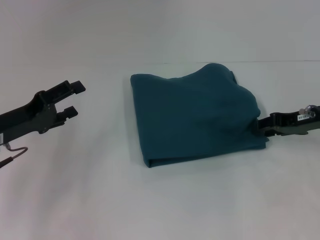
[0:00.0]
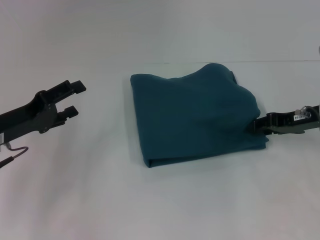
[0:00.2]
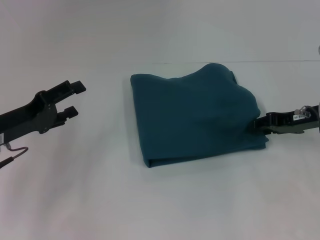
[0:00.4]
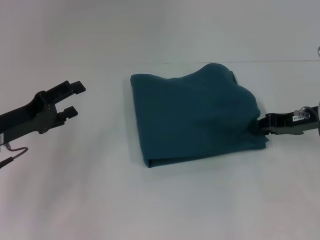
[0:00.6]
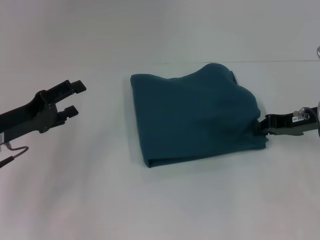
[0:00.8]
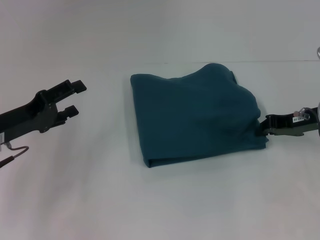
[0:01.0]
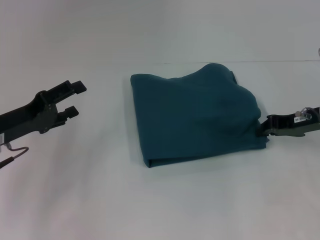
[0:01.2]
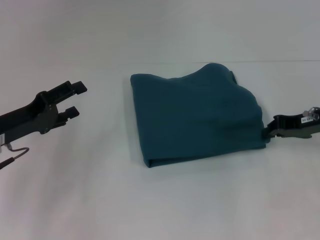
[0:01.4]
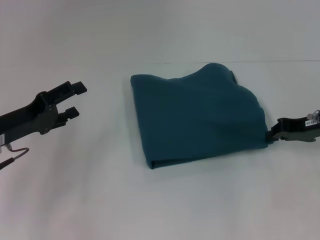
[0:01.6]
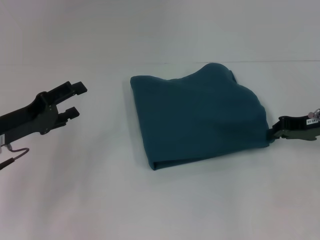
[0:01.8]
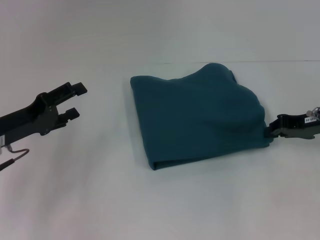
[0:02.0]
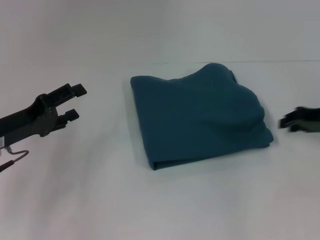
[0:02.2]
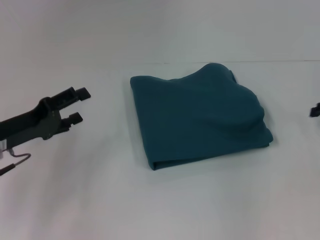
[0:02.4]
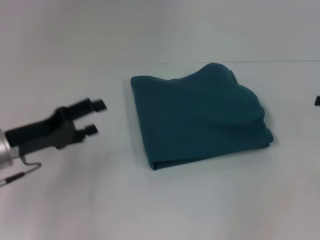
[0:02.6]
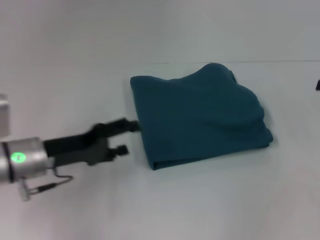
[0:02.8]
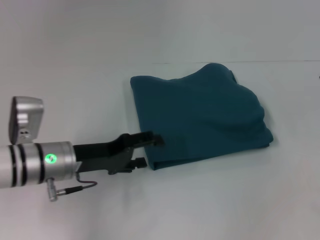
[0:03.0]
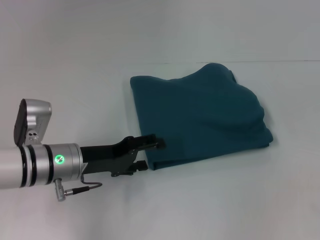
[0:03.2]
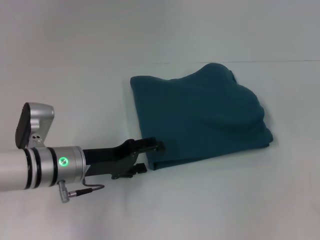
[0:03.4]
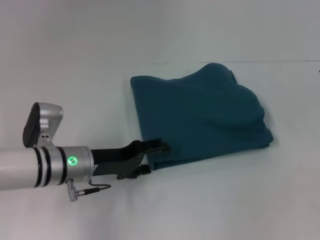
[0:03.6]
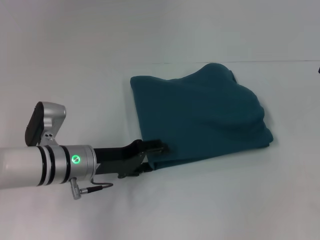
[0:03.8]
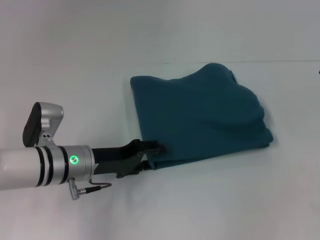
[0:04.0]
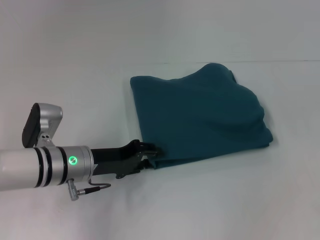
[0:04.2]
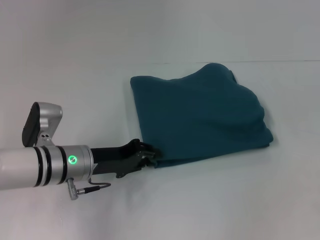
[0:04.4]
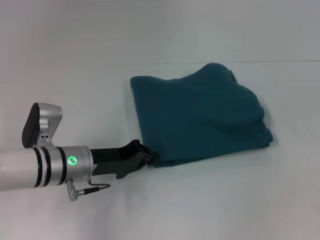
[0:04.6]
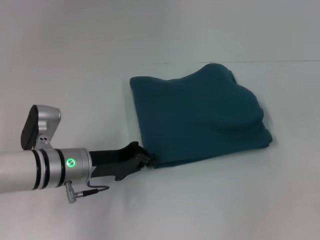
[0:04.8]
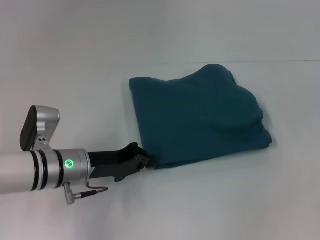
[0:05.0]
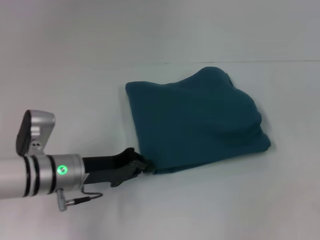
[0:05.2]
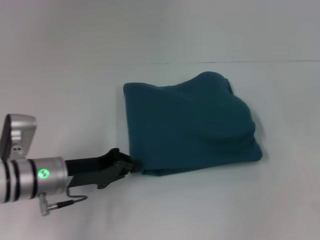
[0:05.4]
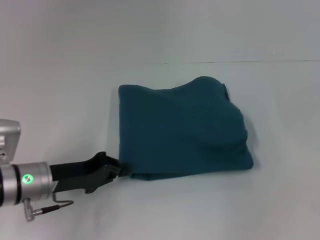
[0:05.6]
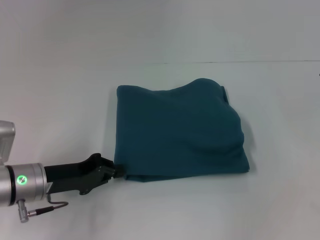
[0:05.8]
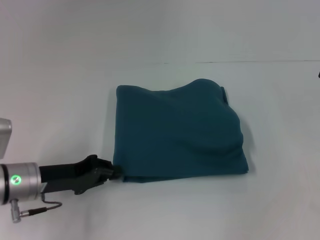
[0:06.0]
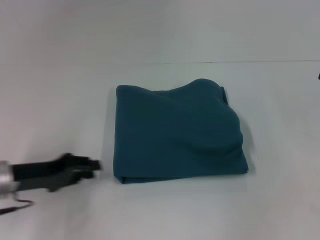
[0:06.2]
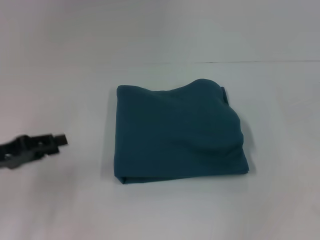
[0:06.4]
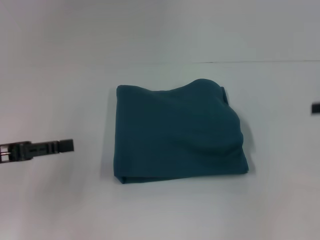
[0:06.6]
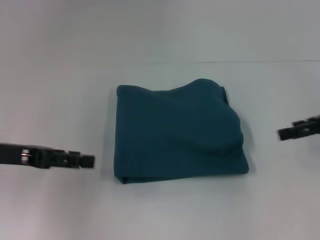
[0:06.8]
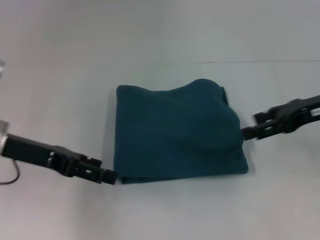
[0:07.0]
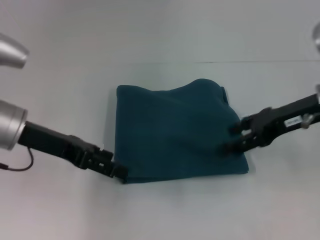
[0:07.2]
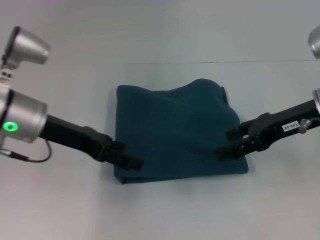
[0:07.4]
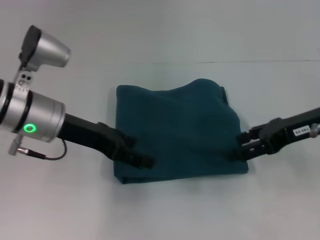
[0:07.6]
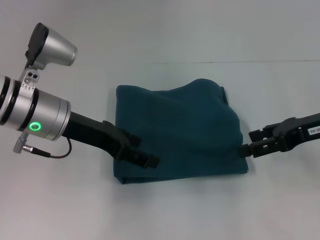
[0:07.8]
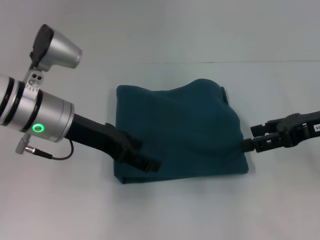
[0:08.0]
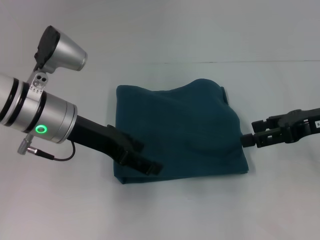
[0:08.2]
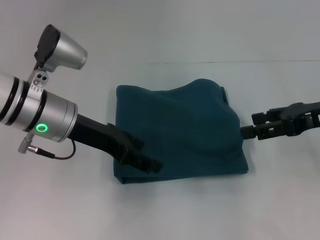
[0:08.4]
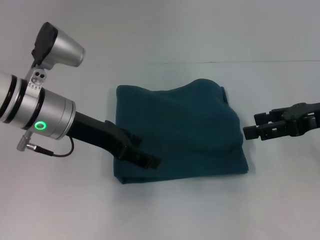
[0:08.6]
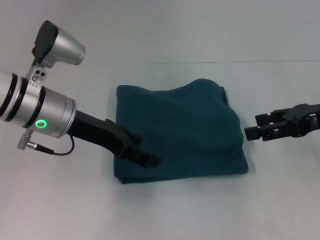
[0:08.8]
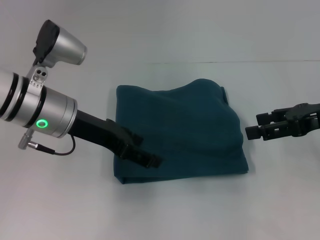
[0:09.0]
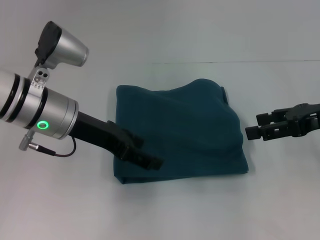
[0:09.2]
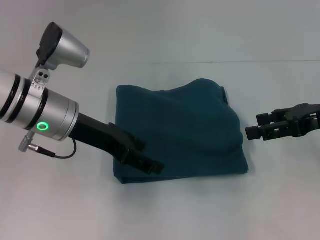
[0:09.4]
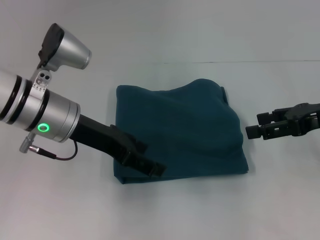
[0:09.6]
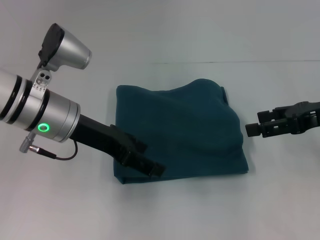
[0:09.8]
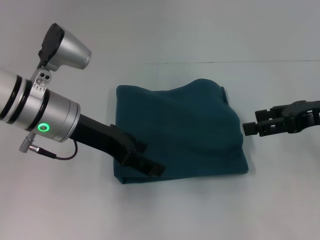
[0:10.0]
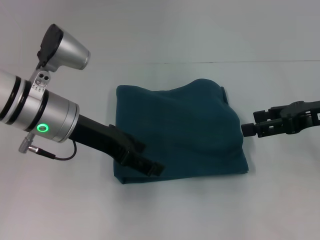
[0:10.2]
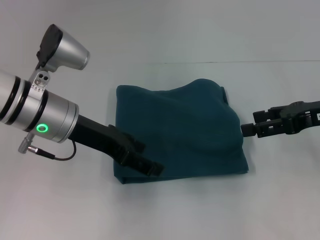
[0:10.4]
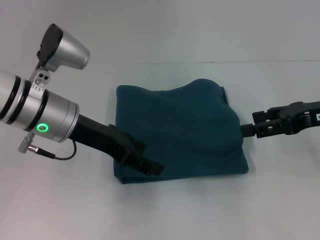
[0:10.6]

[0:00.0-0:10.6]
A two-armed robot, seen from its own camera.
0:00.0 to 0:01.6: The right gripper closes.
0:01.6 to 0:03.0: The left gripper travels to the right by approximately 10 cm. Meanwhile the right gripper moves to the right and upward, some 10 cm, and opens its fingers.
0:03.0 to 0:04.6: The left gripper closes its fingers.
0:04.6 to 0:06.0: The left gripper is displaced to the left by about 5 cm, and closes up.
0:06.0 to 0:07.6: The right gripper moves to the left, approximately 15 cm. Meanwhile the left gripper shifts approximately 10 cm upward and forward, and opens its fingers.
0:07.6 to 0:09.0: The grippers move only a little.
0:09.0 to 0:10.6: Both grippers stay put.

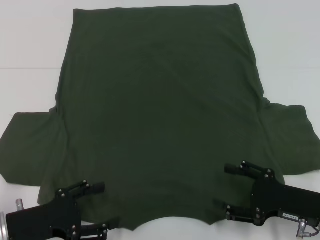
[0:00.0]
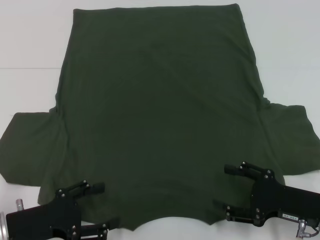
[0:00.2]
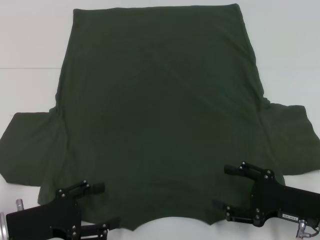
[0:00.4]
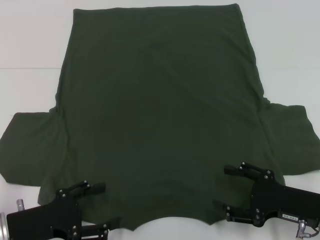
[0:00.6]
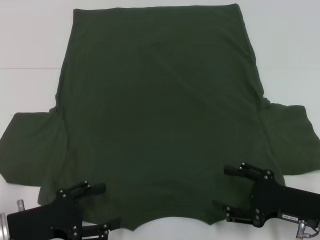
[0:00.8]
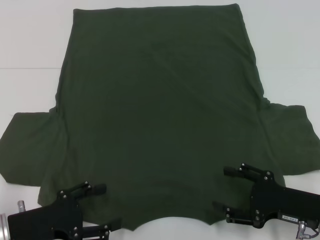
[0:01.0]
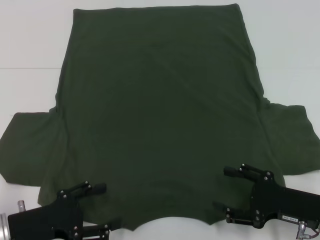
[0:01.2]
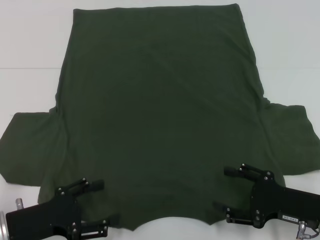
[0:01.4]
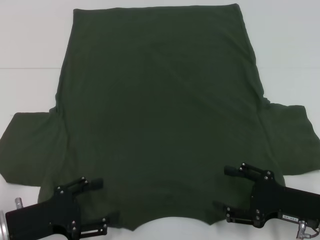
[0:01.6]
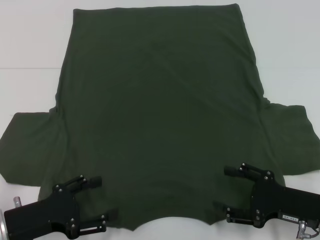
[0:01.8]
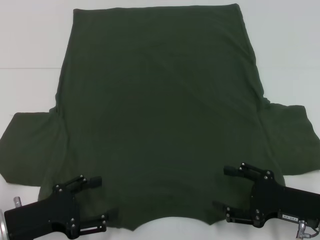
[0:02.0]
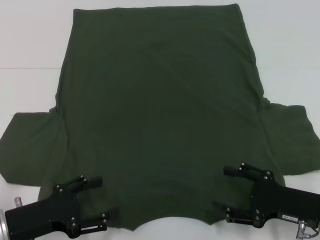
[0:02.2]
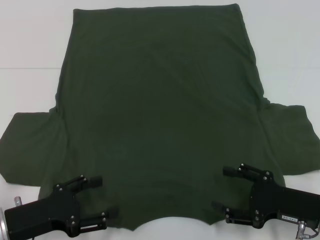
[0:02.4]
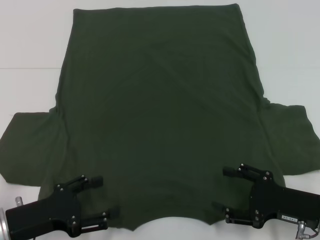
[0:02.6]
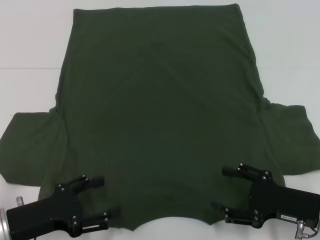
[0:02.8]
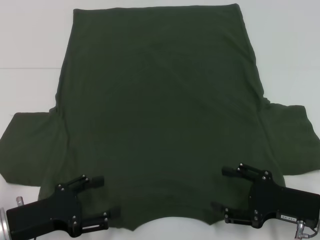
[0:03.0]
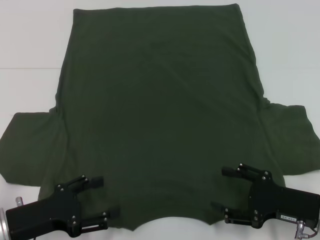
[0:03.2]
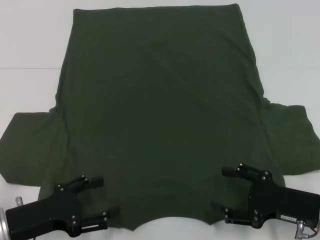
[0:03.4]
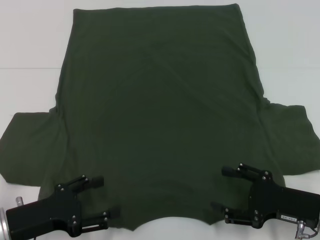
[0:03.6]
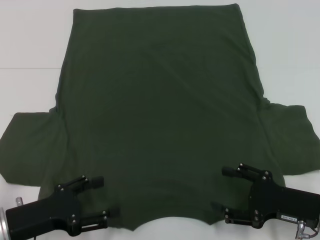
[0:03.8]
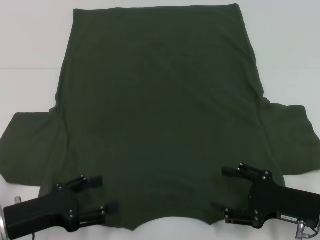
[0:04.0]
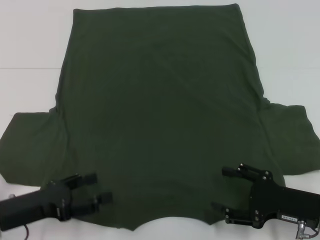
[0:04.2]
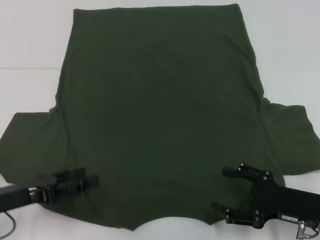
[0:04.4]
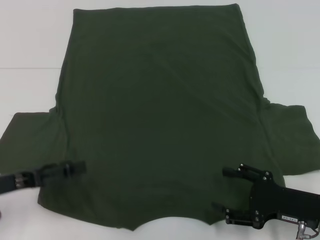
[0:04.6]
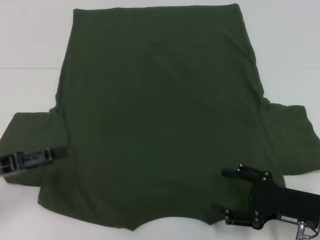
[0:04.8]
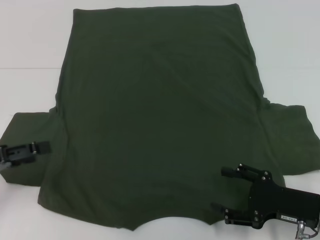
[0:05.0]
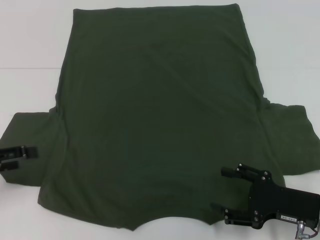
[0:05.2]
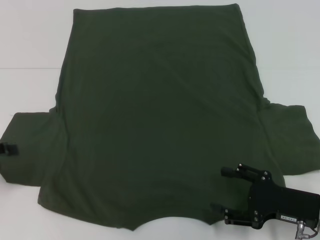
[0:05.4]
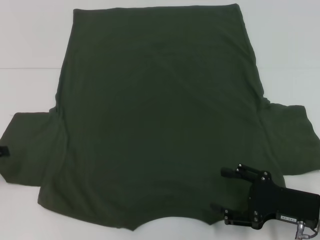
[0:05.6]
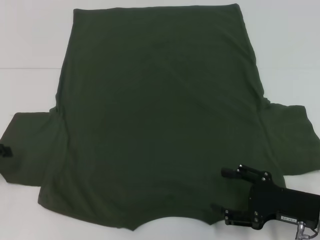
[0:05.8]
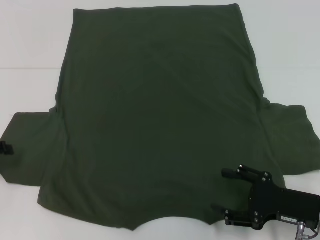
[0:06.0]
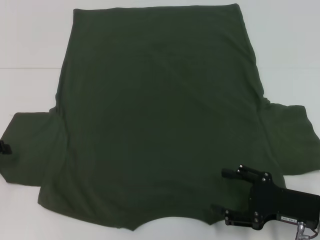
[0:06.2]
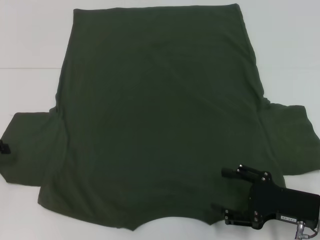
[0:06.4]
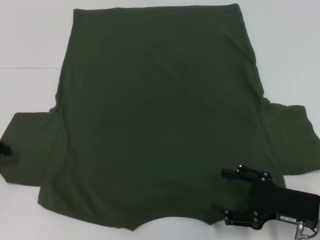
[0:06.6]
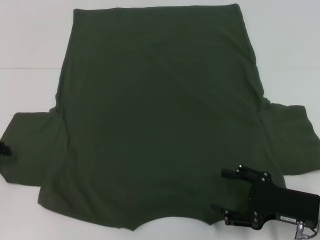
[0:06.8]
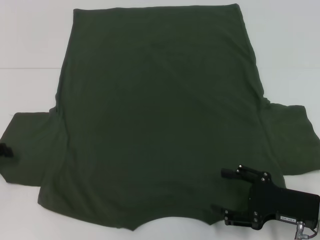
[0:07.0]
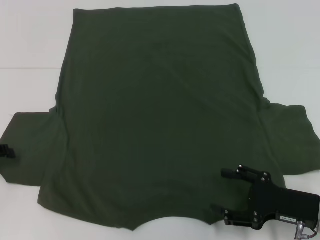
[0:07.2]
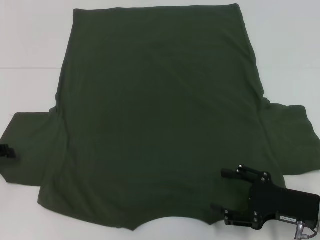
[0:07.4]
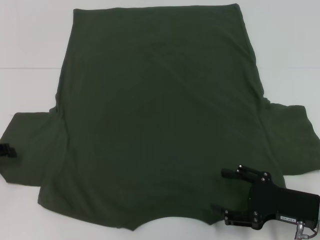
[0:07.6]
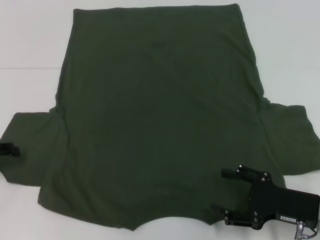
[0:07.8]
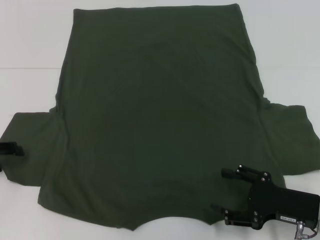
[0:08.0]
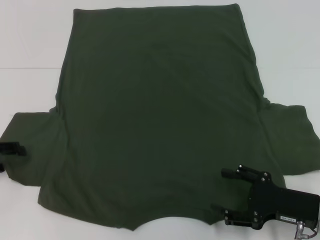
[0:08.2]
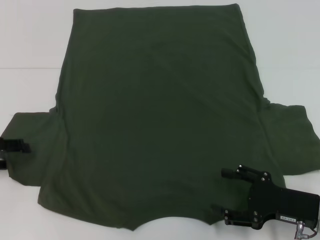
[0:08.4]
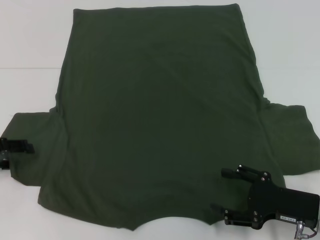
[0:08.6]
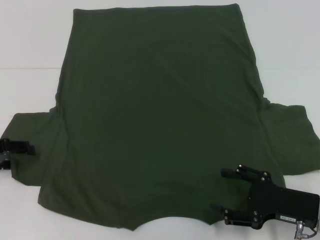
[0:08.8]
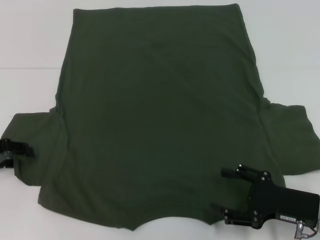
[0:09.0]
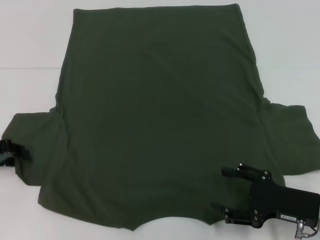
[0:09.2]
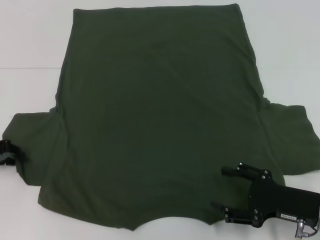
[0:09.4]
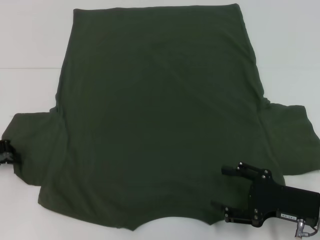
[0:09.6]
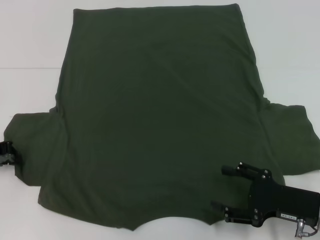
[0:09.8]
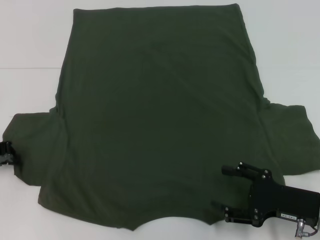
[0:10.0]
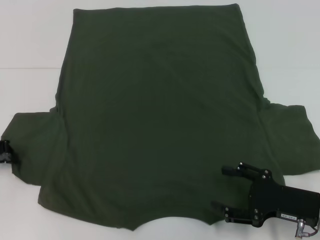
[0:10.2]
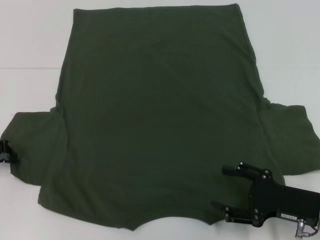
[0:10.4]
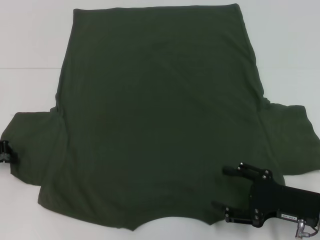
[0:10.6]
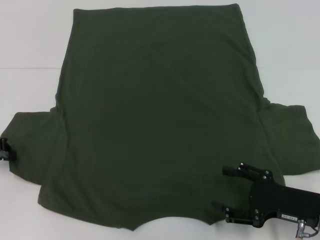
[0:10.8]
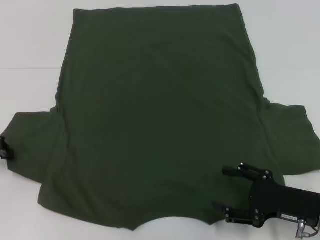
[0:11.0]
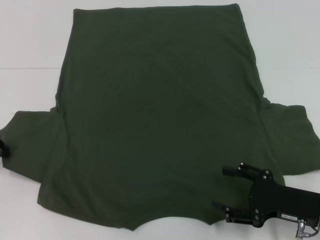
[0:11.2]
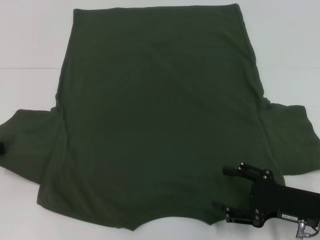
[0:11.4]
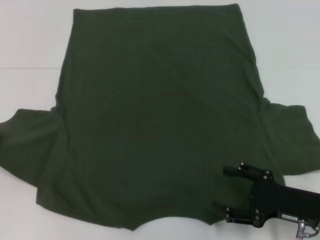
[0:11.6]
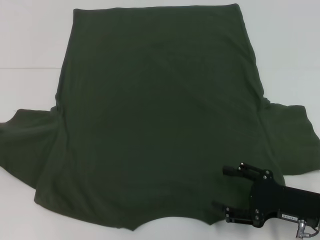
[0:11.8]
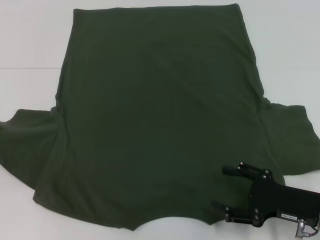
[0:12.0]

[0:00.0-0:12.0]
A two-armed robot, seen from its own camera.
0:00.0 to 0:01.6: Both grippers stay put.
0:01.6 to 0:03.0: The two grippers keep their place.
0:04.4 to 0:06.0: The left gripper heads to the left and forward, covering some 10 cm.
0:07.6 to 0:09.0: There are only small adjustments of the grippers.
0:09.0 to 0:10.4: The left gripper closes its fingers.
0:10.4 to 0:12.0: The left gripper ends up about 5 cm from where it was.
